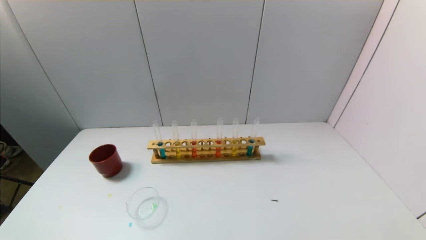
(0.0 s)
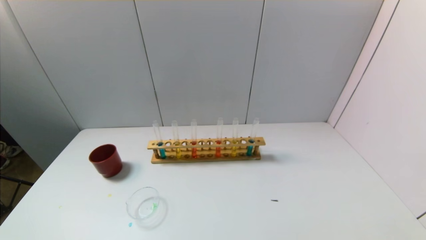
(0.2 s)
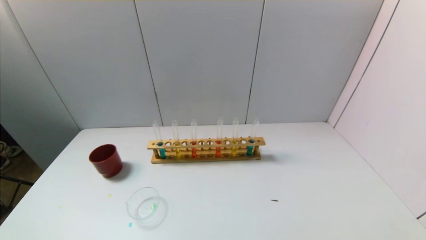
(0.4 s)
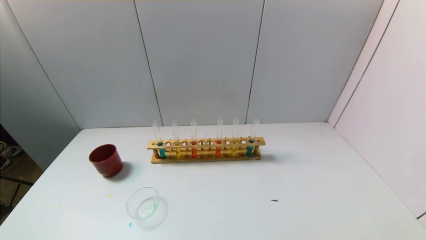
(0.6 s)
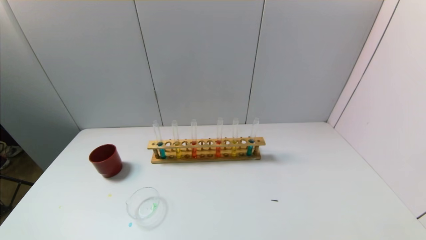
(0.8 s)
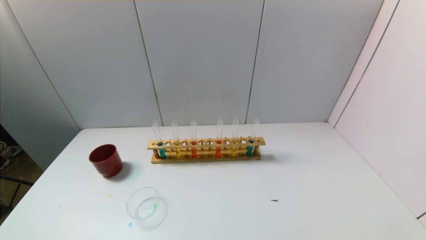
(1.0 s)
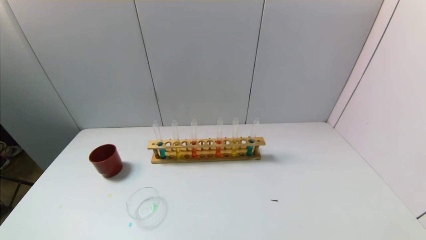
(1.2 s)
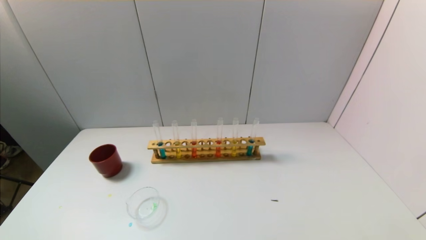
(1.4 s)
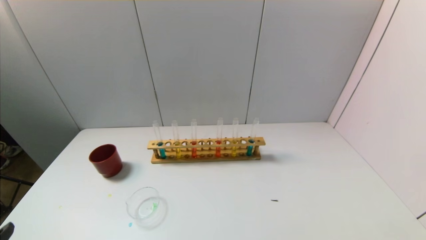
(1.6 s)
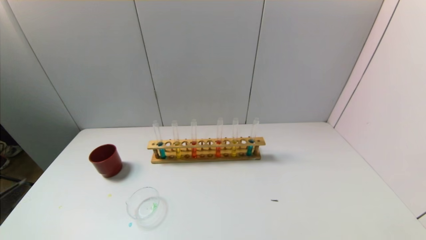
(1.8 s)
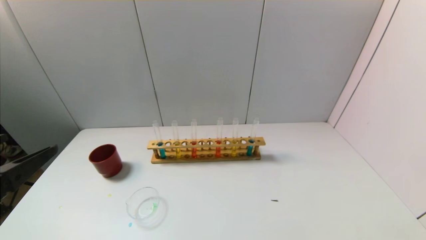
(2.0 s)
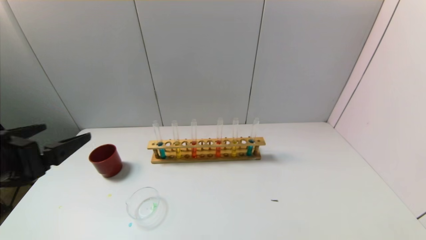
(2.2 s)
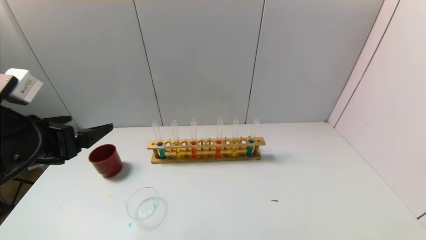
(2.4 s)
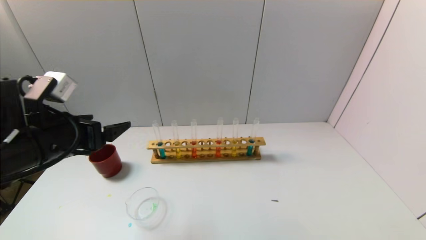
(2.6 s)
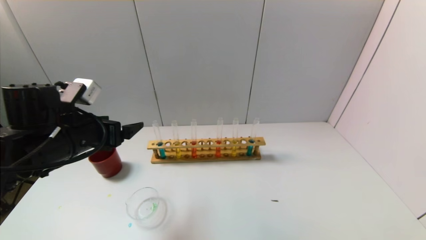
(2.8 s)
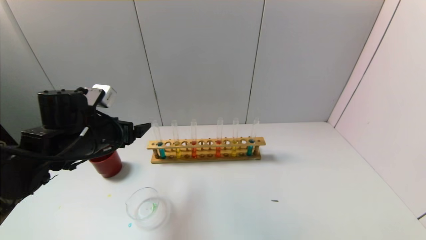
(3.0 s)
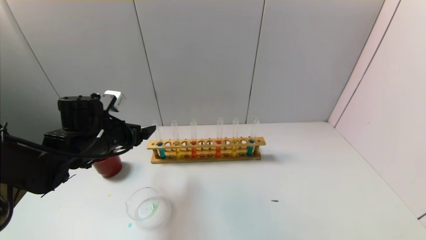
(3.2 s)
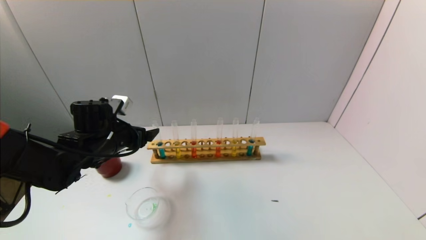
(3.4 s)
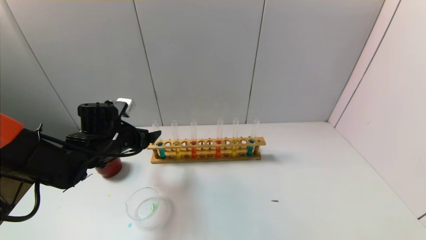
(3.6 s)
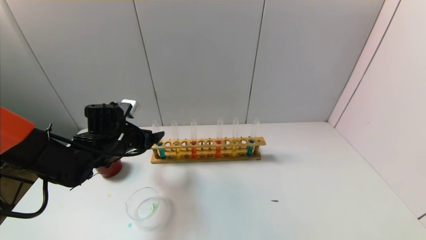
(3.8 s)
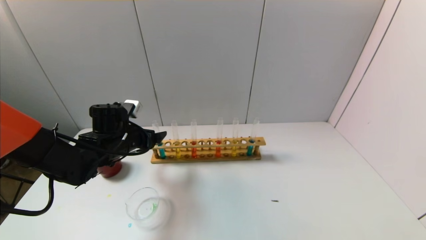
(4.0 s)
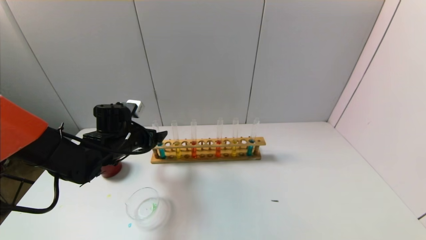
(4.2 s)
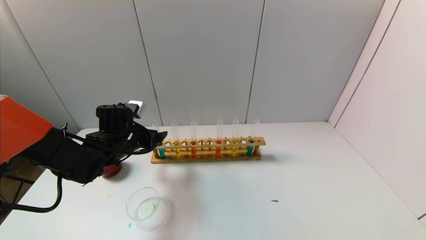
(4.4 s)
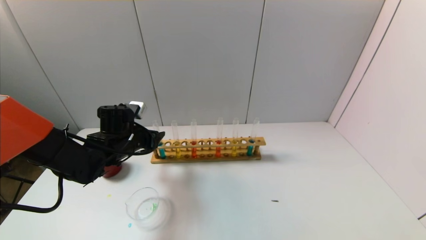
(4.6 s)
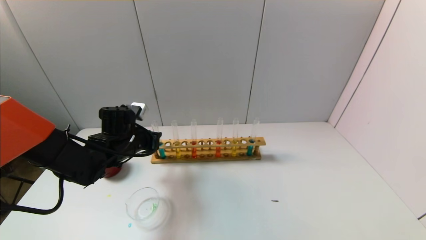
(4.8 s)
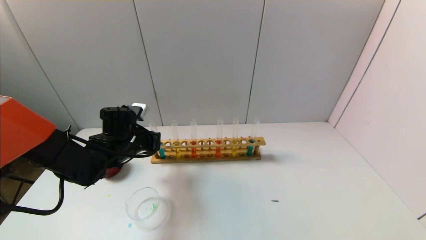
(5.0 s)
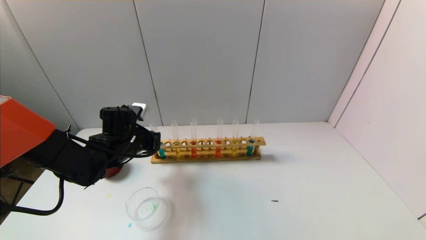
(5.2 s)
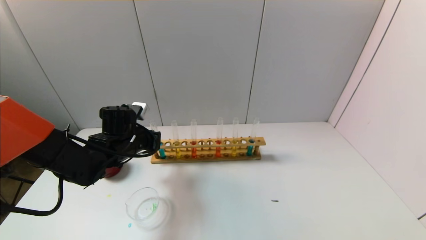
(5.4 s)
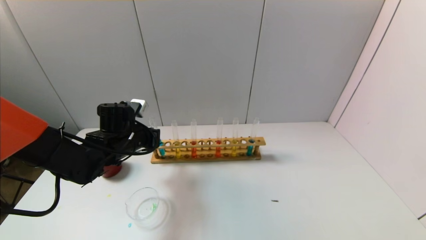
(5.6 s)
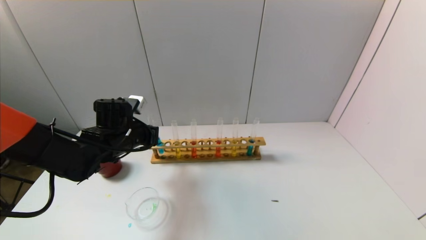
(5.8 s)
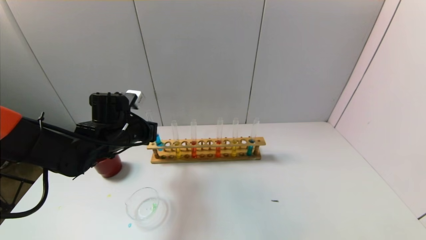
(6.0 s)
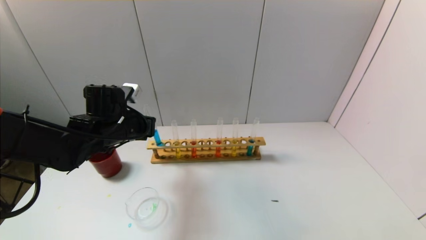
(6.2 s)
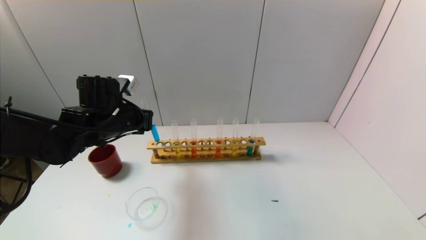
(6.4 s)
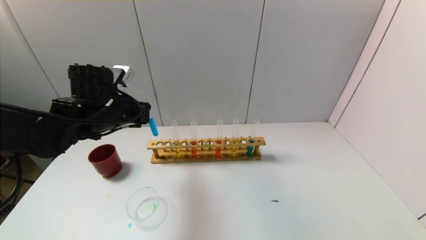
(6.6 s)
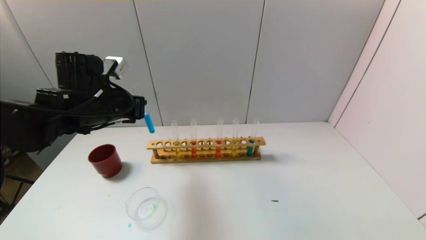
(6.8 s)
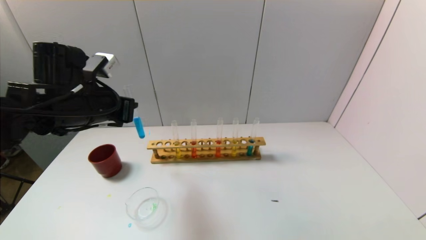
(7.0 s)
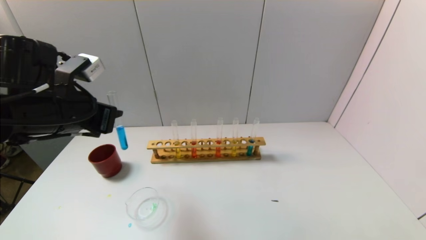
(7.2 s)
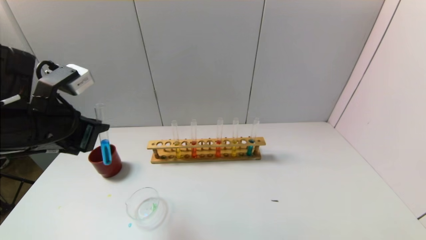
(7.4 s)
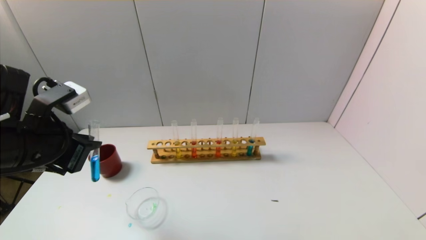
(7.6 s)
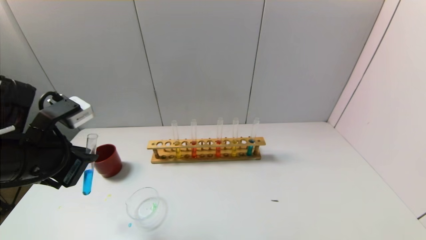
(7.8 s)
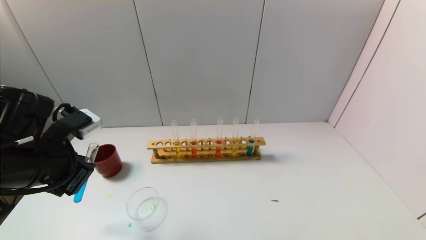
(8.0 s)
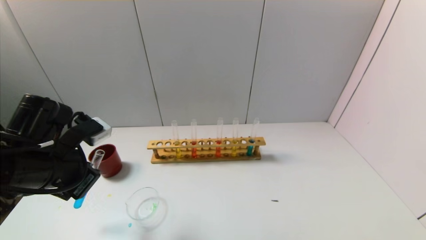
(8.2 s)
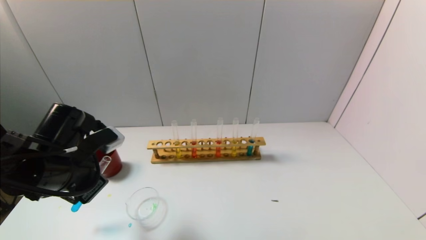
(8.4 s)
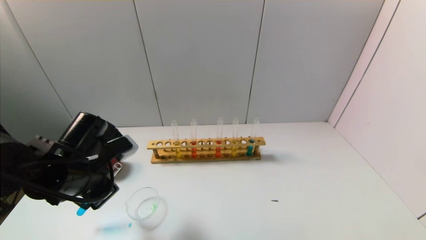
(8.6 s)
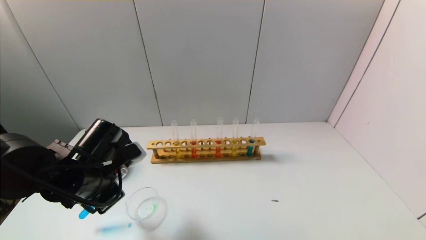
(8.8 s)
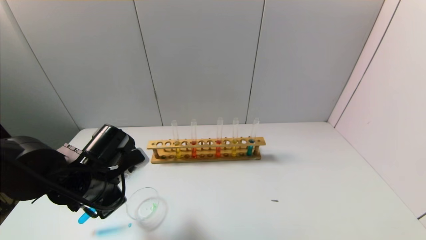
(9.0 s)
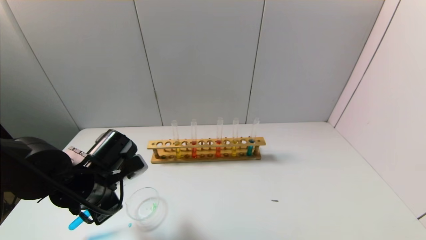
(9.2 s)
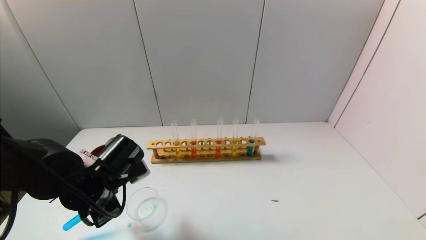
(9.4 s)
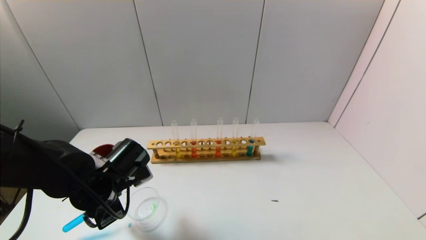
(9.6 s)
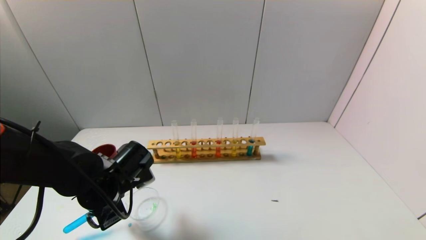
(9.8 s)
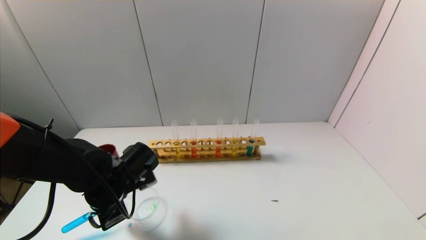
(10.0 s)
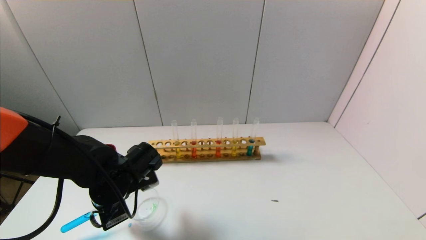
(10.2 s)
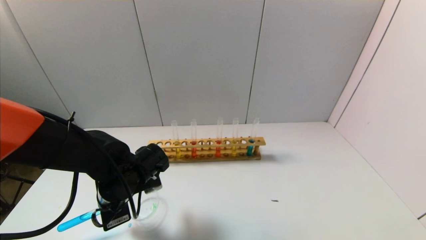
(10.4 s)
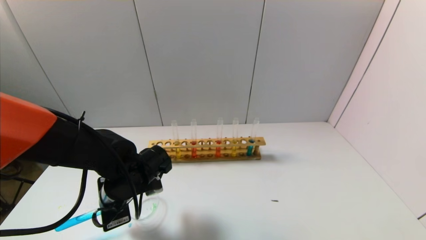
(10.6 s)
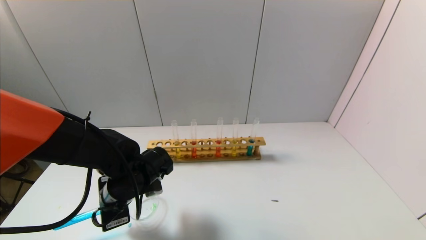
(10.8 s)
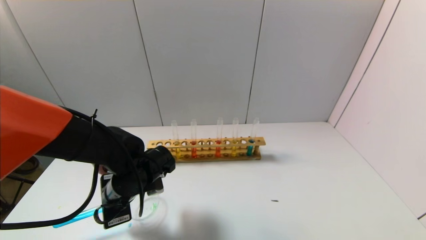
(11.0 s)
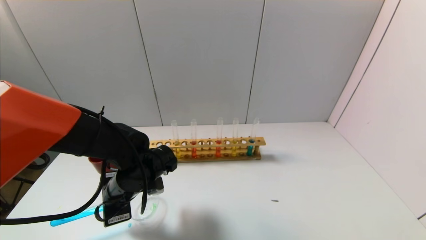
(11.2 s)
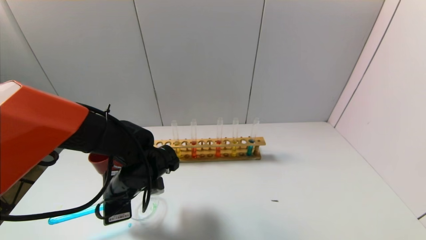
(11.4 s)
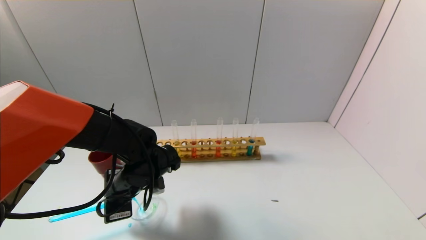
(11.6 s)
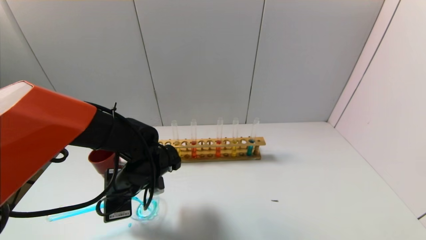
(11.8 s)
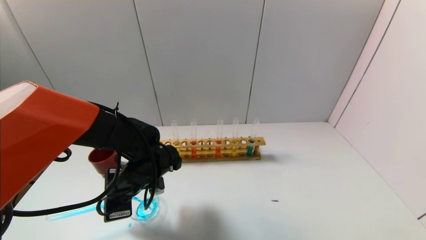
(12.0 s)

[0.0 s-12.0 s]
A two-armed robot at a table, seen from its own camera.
Task of the whole recording: pick up the test tube with yellow pigment and the test tube with blue pigment by grippers and pour them into the beaker.
Step, 0.0 to 5.4 s: Grasp the blue reagent with the left gripper.
1.6 to 3.0 s: The left gripper shifts roughly 30 cm forward.
3.0 to 4.4 s: The left gripper shifts about 10 cm forward and downward.
4.4 to 6.0 s: The left gripper closes.
6.0 to 7.6 s: The left gripper moves backward and upward, approximately 15 cm.
7.6 to 9.0 s: The left gripper moves downward and to the right, roughly 10 cm.
9.0 to 10.4 s: The left gripper moves some 5 cm.
10.4 to 12.0 s: There are only small adjustments of the grippers.

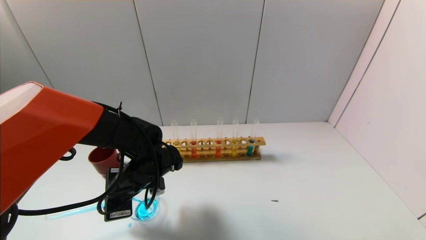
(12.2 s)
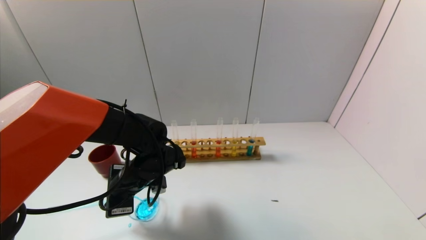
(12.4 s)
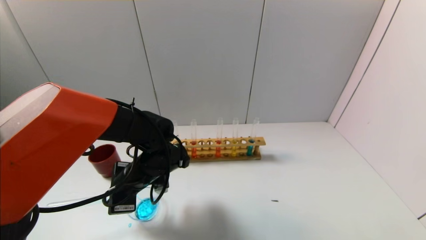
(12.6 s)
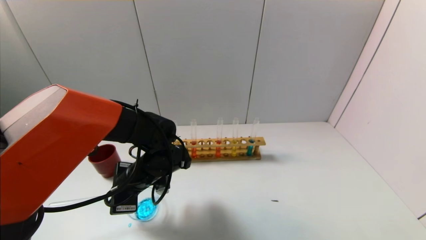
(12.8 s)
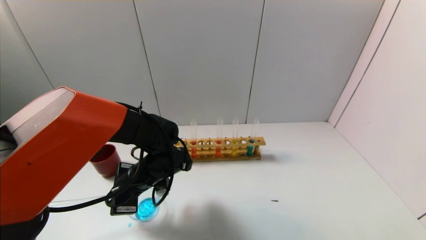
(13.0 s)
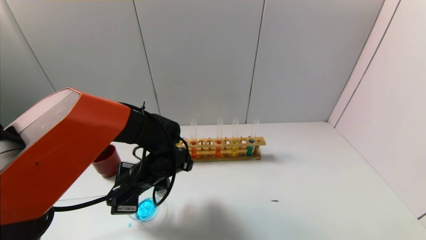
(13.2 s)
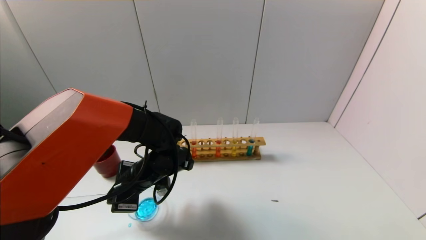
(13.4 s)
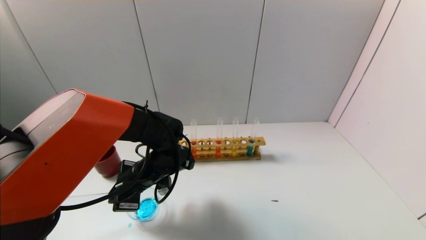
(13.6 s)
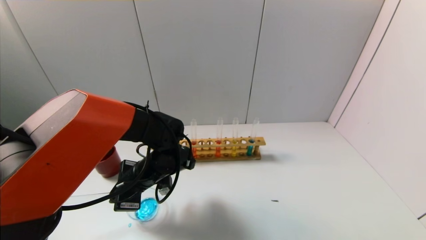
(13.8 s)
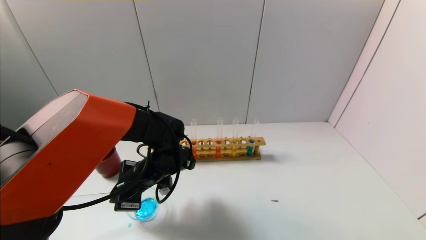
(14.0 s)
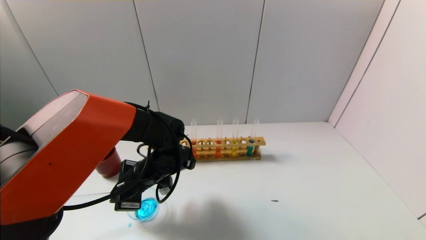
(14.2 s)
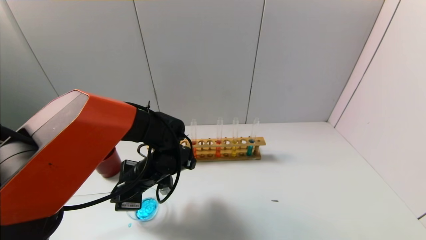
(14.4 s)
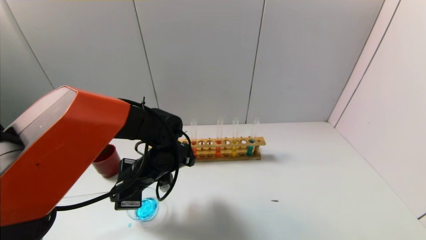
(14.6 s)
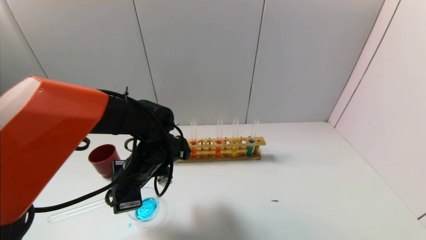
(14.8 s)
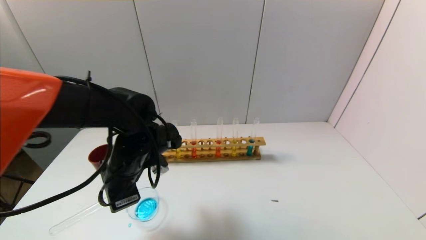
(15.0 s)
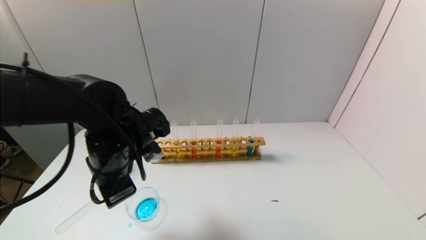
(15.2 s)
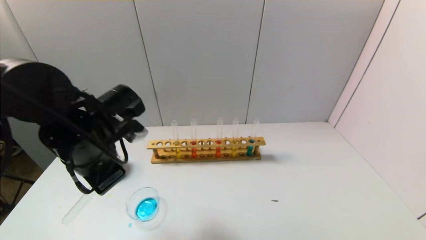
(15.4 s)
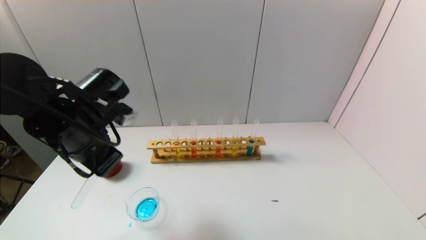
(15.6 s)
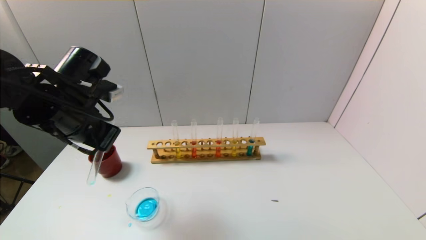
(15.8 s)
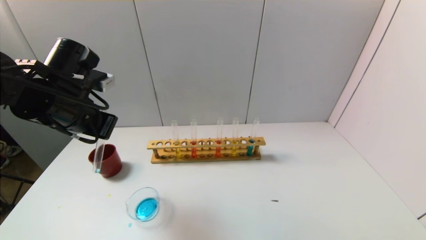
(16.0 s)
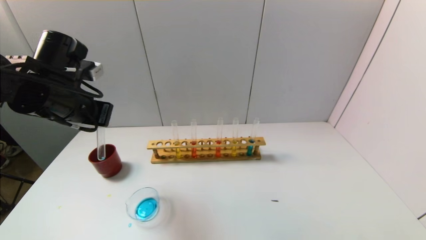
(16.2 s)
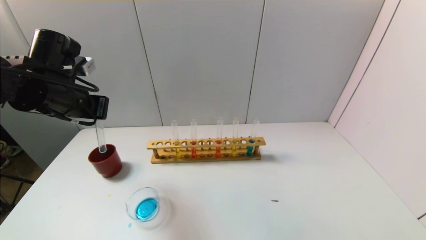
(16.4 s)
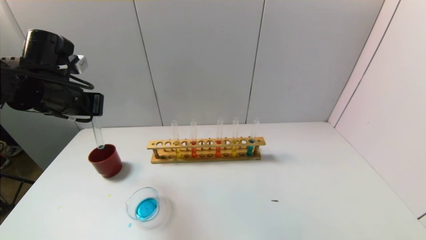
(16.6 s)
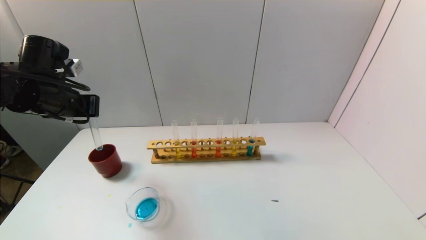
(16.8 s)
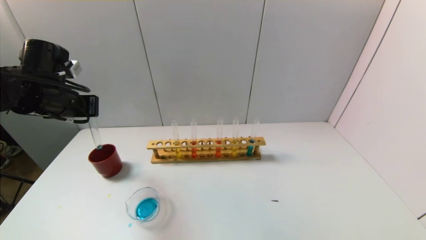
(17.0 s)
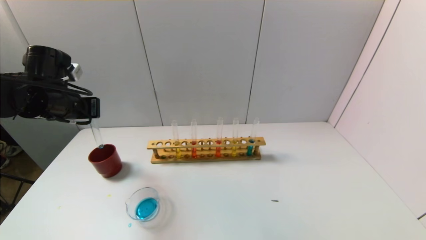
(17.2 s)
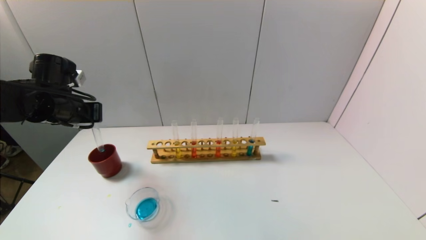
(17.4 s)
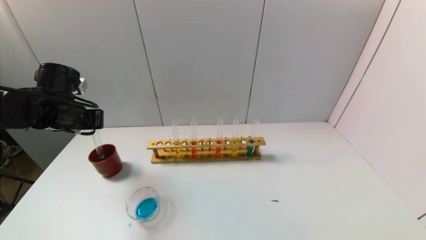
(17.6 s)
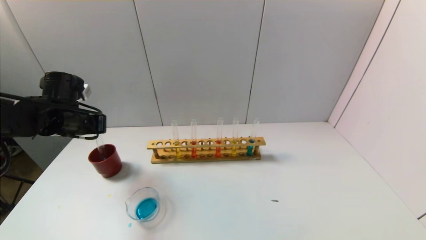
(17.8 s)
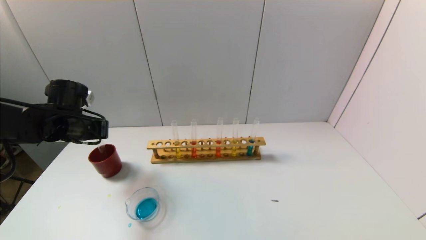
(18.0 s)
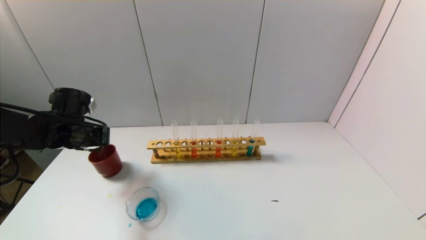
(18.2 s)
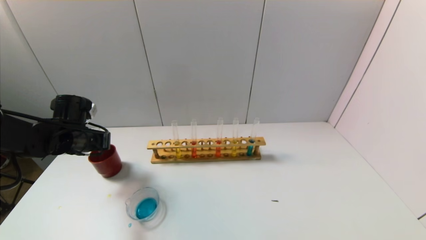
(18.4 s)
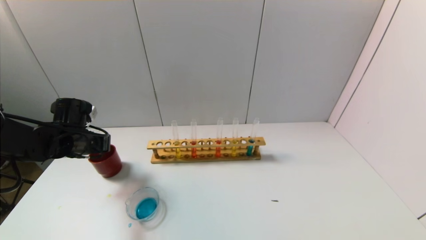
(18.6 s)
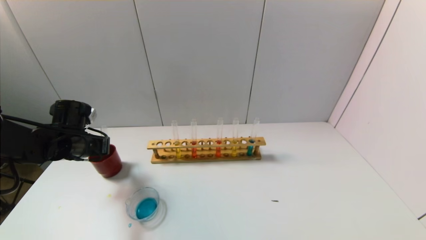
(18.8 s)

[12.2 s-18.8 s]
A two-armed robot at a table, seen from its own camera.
Task of the whole recording: pick up the test tube with yellow pigment and the test tube with blue pigment by grippers and pour them into the beaker.
12.2 to 13.8 s: The grippers make only small movements.
13.8 to 15.4 s: The left gripper travels upward, to the left and backward by roughly 15 cm.
15.4 to 17.2 s: The left gripper shifts roughly 15 cm to the left and forward.
17.2 to 18.8 s: The left gripper goes approximately 10 cm downward.
